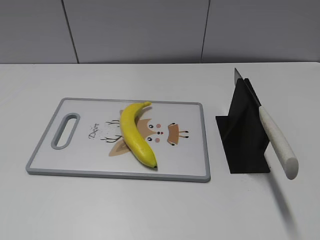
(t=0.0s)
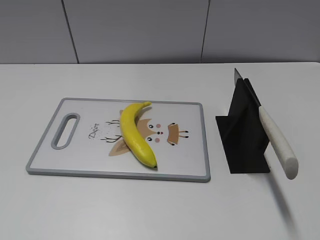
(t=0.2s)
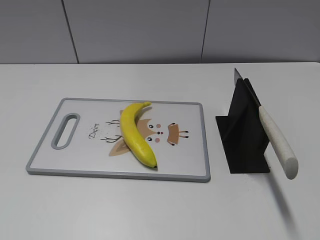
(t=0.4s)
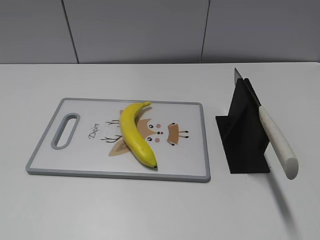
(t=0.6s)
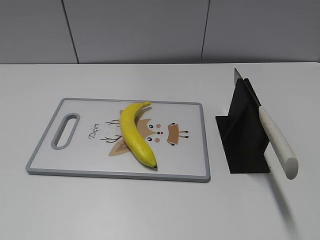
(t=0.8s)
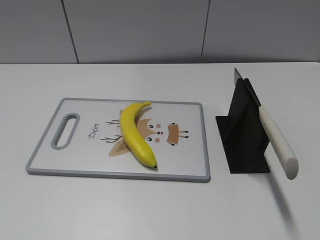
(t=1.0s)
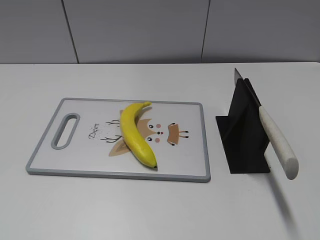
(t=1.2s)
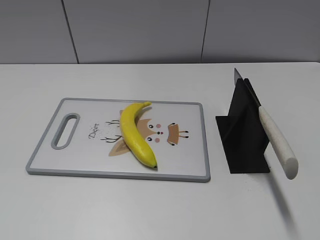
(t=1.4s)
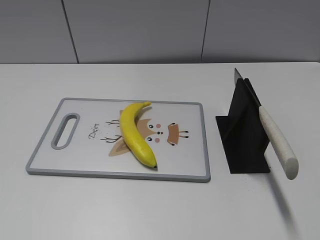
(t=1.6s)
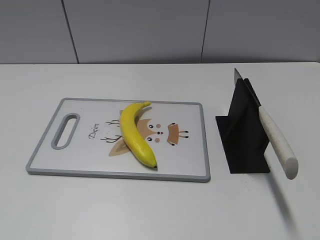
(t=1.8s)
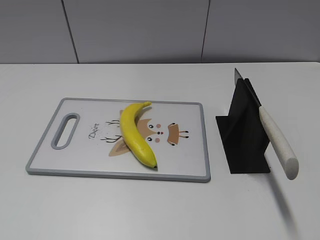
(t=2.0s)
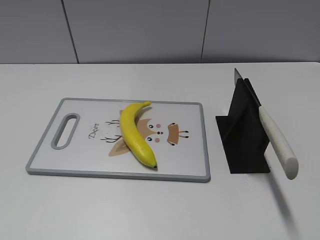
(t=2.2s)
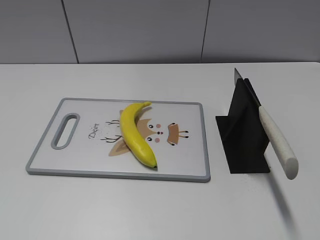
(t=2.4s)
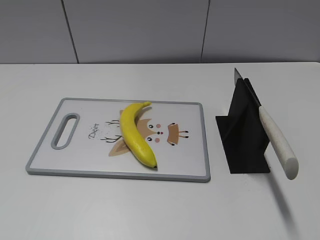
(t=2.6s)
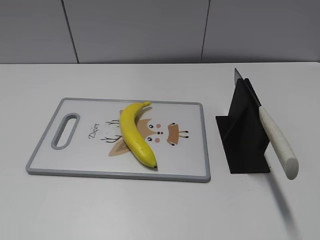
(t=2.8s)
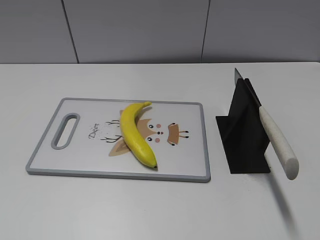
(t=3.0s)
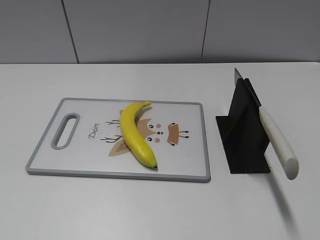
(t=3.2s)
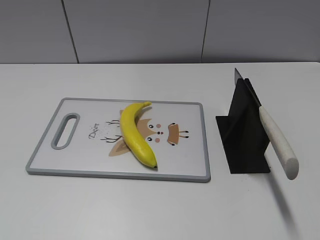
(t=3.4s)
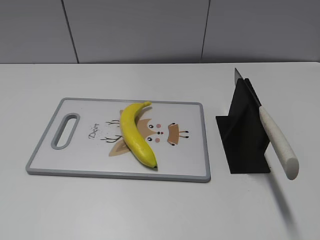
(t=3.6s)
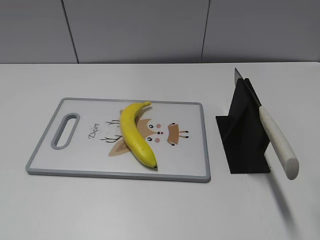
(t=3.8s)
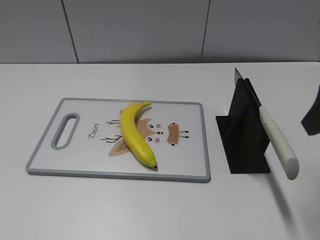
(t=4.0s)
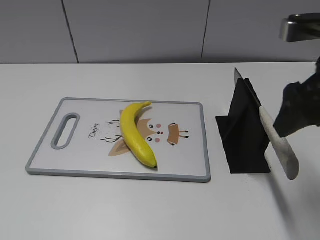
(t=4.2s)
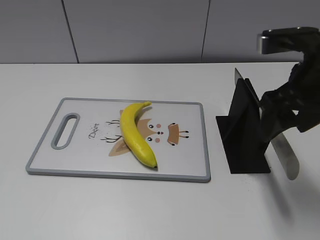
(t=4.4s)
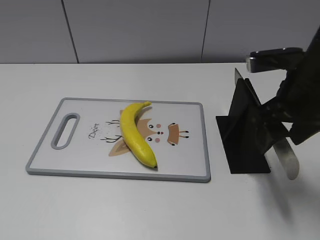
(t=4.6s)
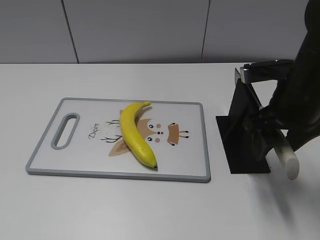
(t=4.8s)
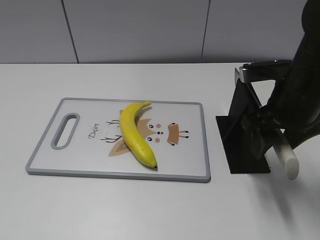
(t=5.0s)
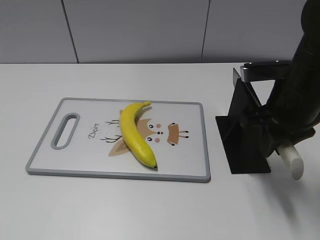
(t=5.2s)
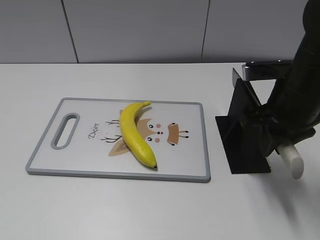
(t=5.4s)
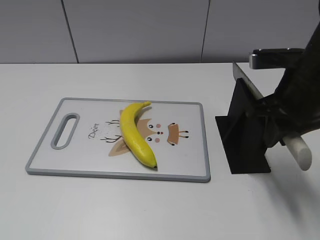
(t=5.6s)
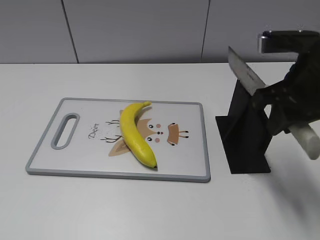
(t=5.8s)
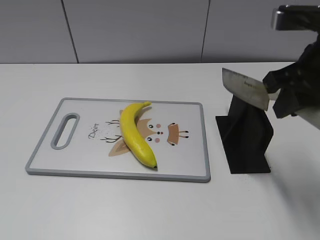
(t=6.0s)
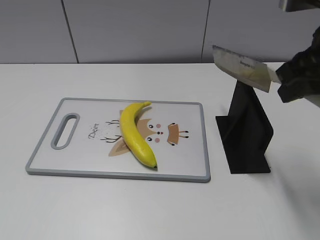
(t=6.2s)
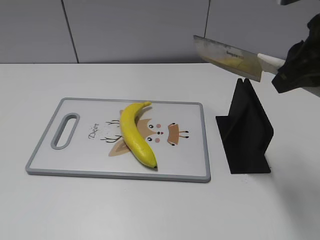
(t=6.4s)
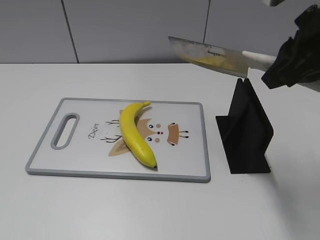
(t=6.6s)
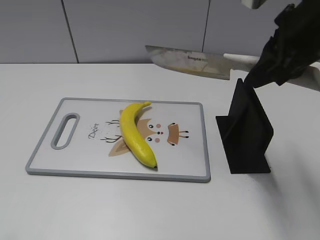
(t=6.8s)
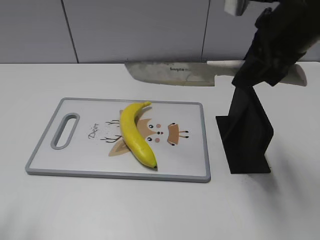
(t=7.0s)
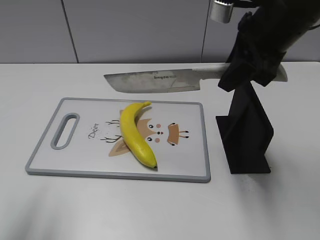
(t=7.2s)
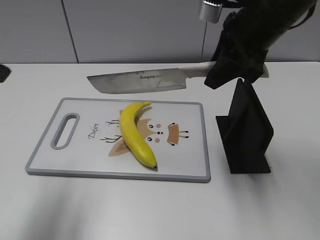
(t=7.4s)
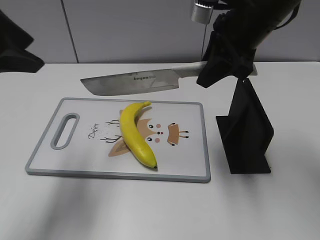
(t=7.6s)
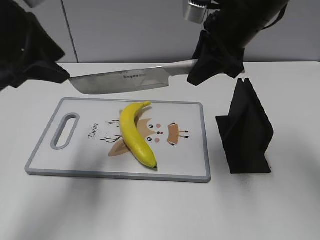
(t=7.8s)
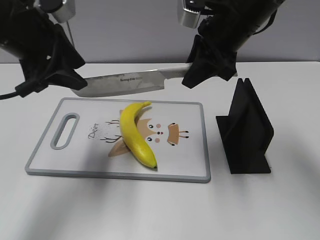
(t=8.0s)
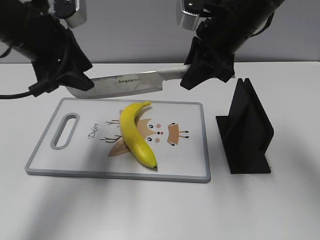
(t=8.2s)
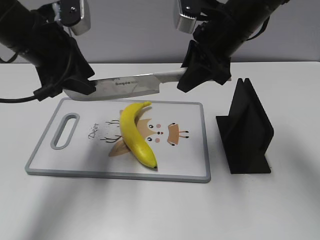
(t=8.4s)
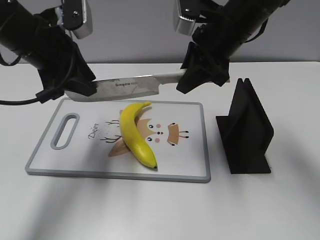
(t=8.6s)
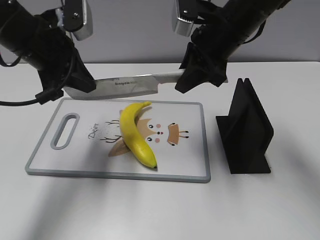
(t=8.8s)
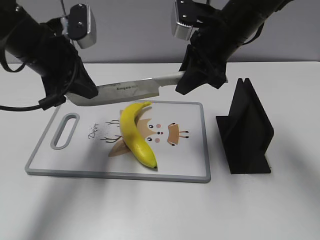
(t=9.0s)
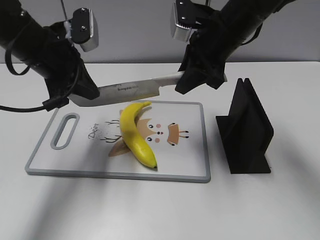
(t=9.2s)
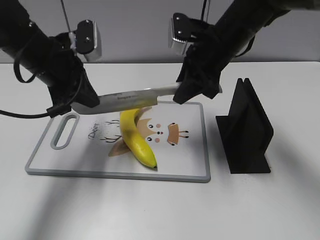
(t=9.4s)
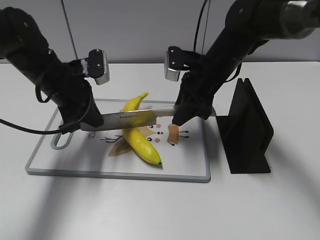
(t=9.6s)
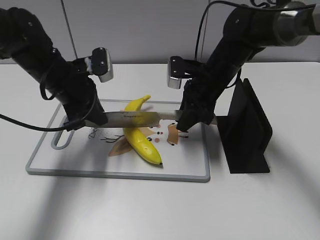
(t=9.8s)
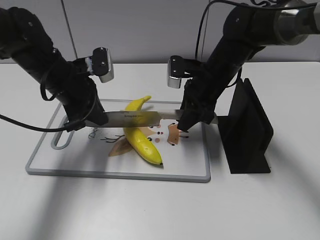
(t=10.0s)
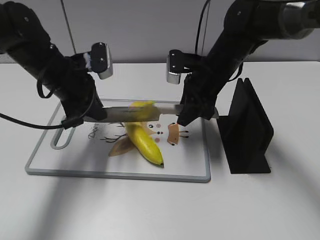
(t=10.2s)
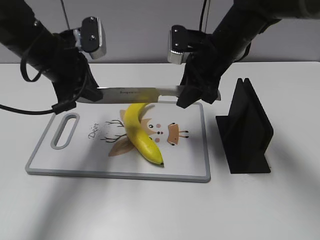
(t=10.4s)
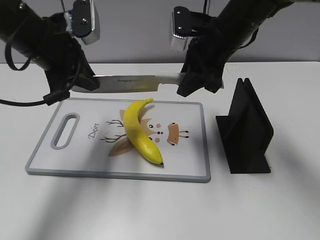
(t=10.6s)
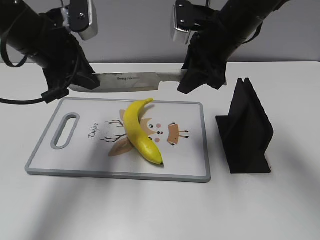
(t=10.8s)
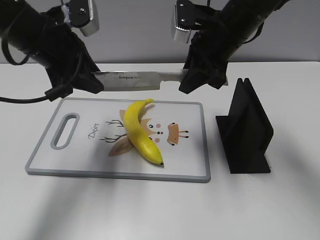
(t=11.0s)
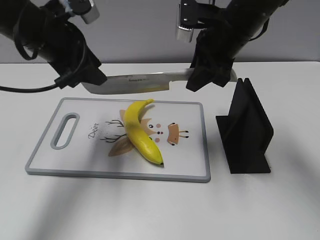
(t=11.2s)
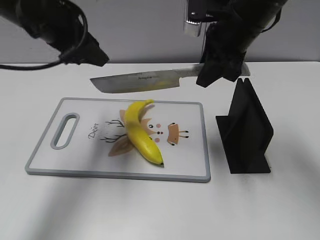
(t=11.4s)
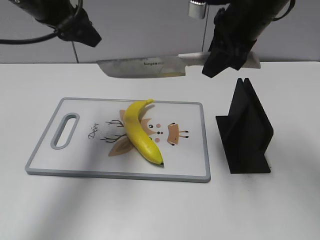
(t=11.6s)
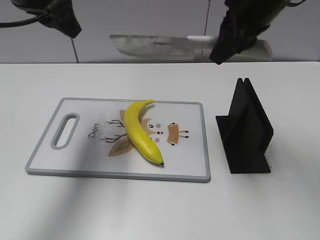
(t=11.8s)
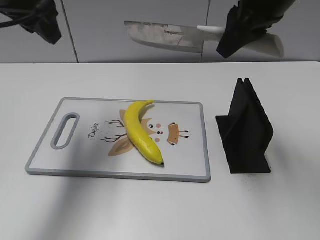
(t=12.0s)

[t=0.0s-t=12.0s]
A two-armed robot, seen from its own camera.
Task of the whole recording: cut plastic banana.
Step, t=0.0s to t=6.4s: Grab the knife handle with your right hand.
Step, t=6.6s to t=11.0s: Hold the blade with your left hand.
t=3.0s to t=4.4s: The right gripper moves forward and to the left, roughly 20 cm.
t=4.4s to t=6.0s: The right gripper closes its fingers.
t=6.0s to t=7.6s: The left gripper heads forward, covering some 25 cm. The right gripper moves forward and to the left, about 10 cm.
t=7.6s to t=9.0s: The left gripper shifts roughly 15 cm forward and downward, and closes. Meanwhile the right gripper moves approximately 5 cm.
t=9.0s to t=10.4s: The left gripper goes downward and returns, some 10 cm each way.
t=10.4s to t=12.0s: The right gripper travels upward and backward by about 15 cm, while the left gripper moves upward, some 10 cm, and opens.

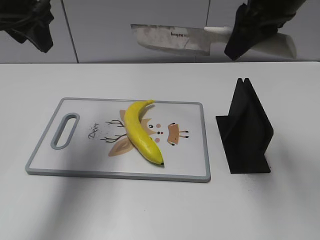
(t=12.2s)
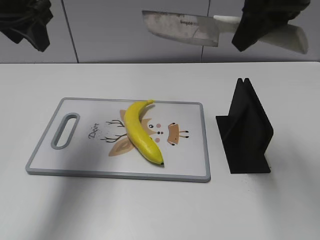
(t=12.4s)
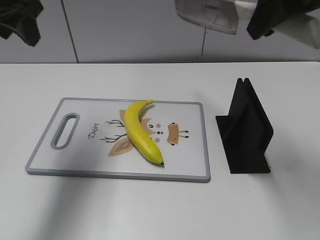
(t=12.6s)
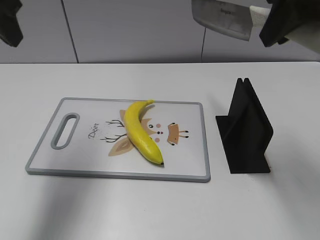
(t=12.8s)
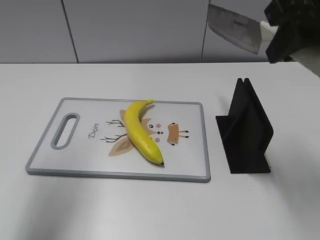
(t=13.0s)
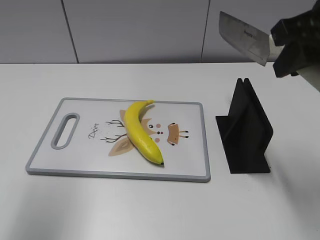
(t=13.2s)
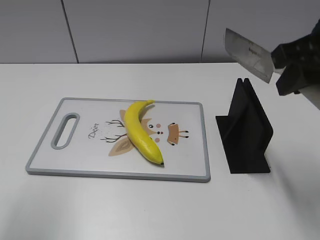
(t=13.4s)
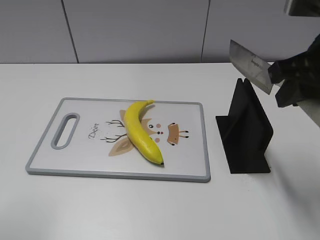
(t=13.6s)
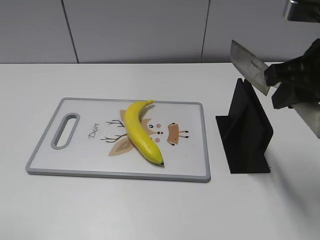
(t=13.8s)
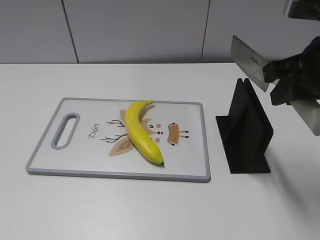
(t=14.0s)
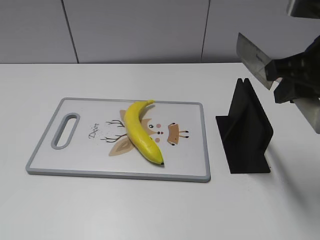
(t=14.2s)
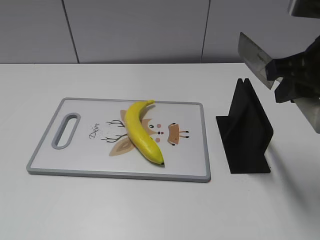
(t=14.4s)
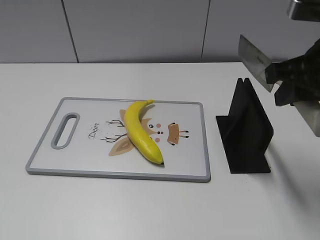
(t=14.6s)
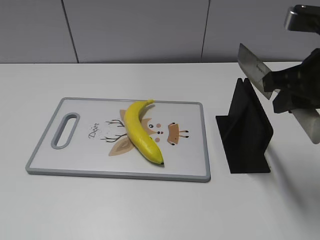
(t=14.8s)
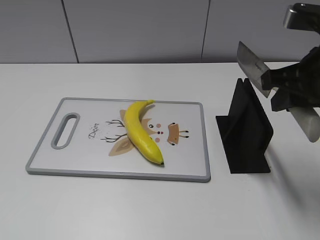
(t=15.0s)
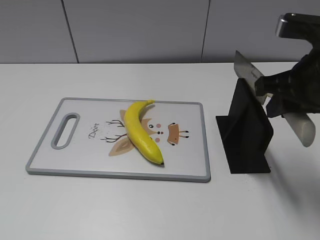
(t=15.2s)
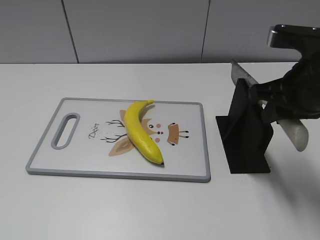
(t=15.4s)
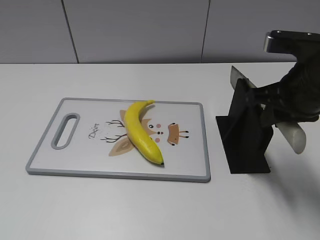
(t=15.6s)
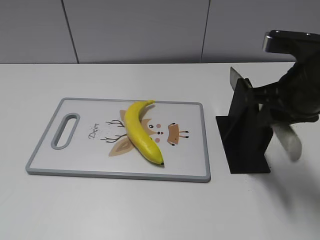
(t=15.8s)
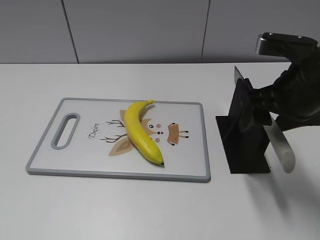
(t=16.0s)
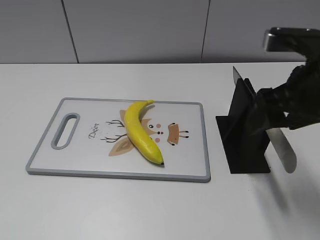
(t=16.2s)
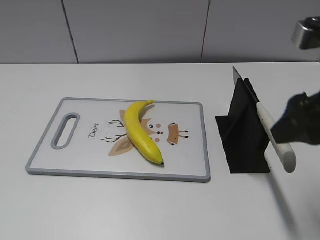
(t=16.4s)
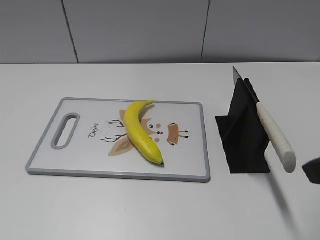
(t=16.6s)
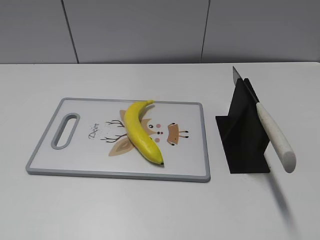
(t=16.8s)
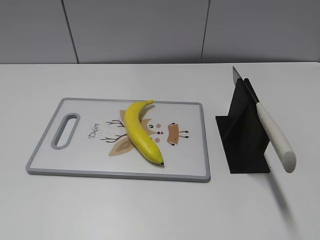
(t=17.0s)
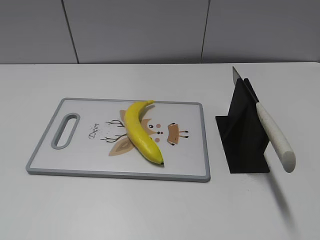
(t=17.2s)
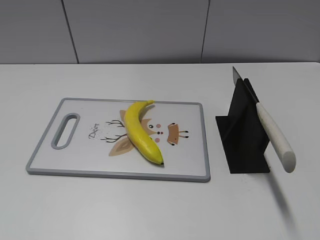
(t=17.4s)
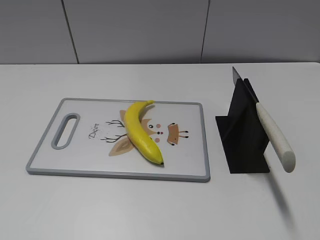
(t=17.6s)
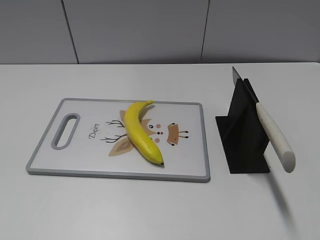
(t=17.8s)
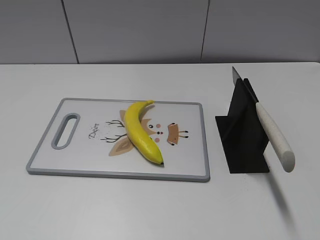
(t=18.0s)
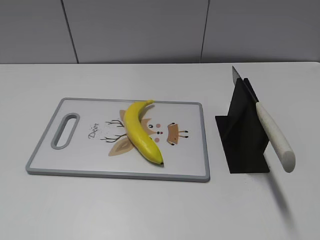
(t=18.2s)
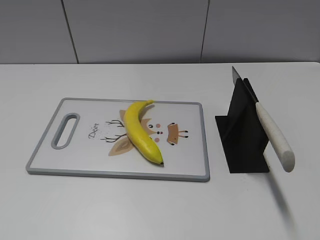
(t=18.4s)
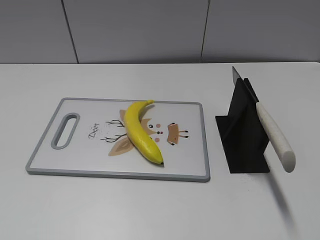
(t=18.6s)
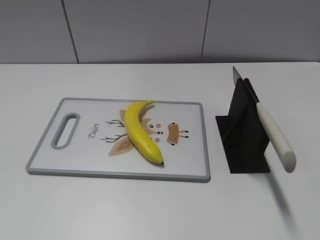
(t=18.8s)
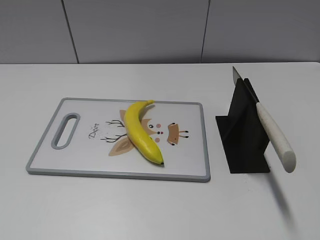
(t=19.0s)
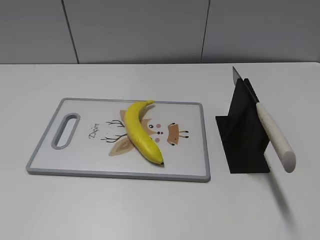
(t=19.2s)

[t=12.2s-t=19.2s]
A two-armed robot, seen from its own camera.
Task of the whole recording: cut plastic banana.
Step, t=12.4s to t=13.6s: Secure the blade with your left hand.
Step, t=13.8s to t=19.2s: Place the knife on the storage rack with your right hand.
t=12.2s to t=13.6s: The right gripper travels backward, to the right and downward by approximately 10 cm. Meanwhile the left gripper moves backward, about 20 cm.
t=15.0s to t=16.4s: The right gripper heads backward, covering roughly 5 cm, and opens up.
t=16.4s to t=17.8s: The right gripper travels backward by some 20 cm.
